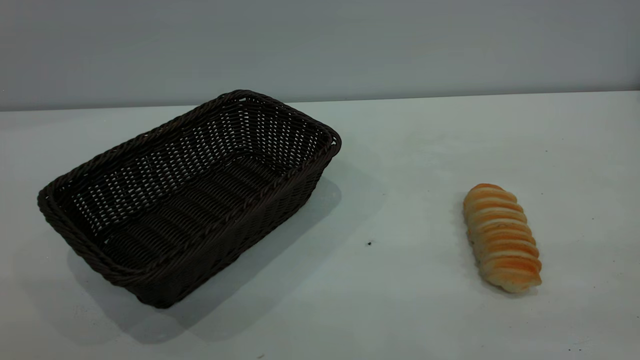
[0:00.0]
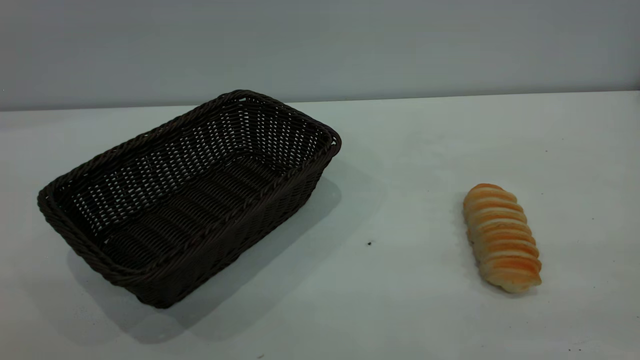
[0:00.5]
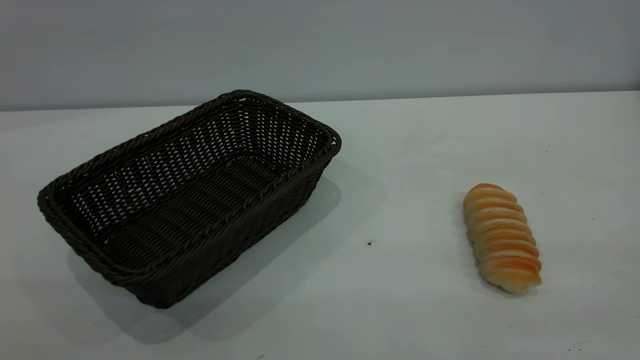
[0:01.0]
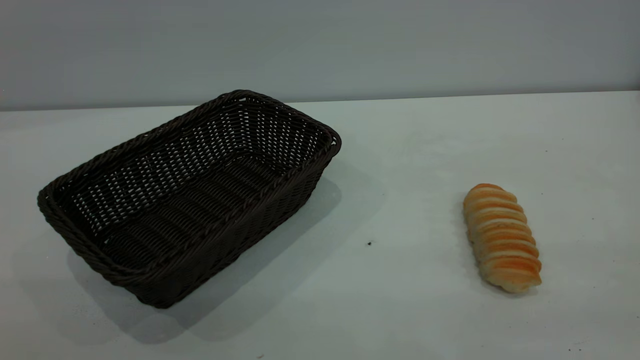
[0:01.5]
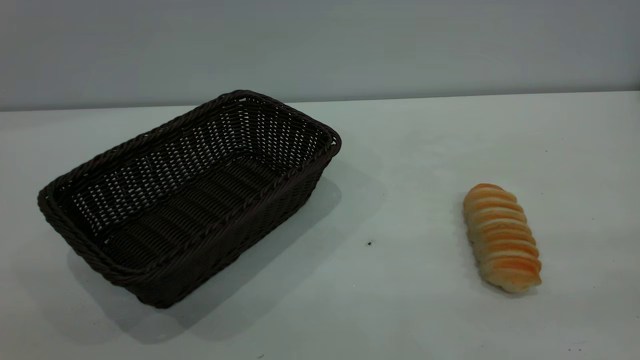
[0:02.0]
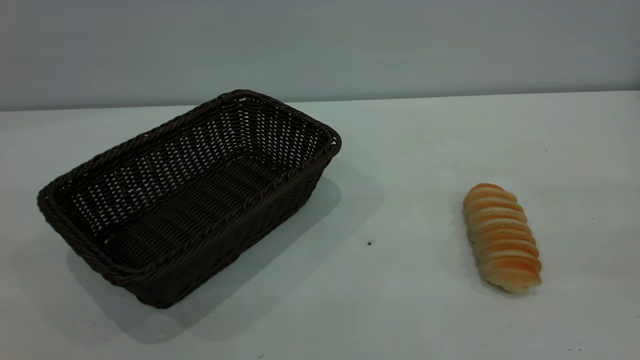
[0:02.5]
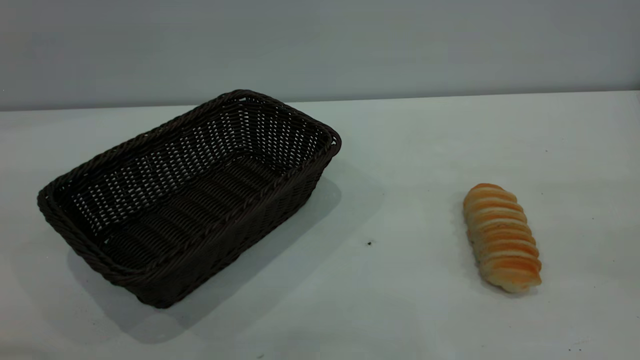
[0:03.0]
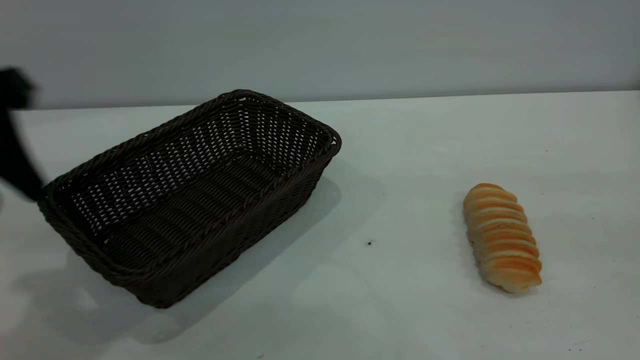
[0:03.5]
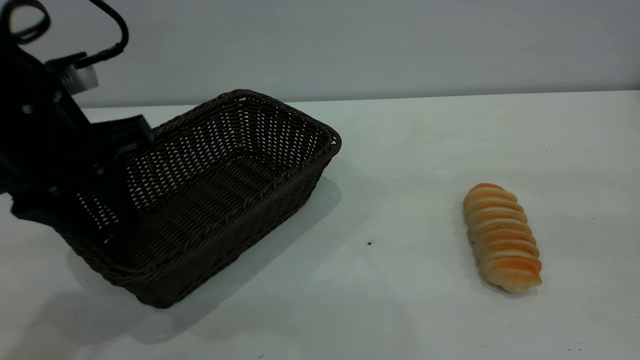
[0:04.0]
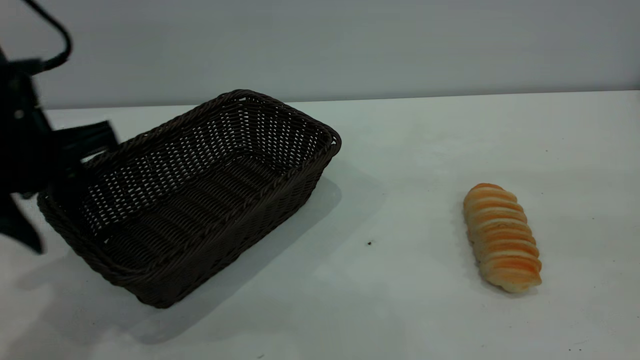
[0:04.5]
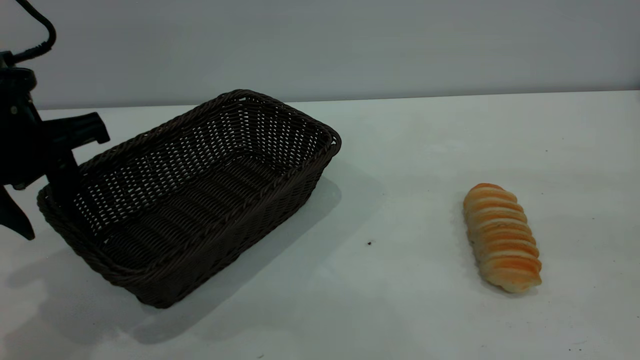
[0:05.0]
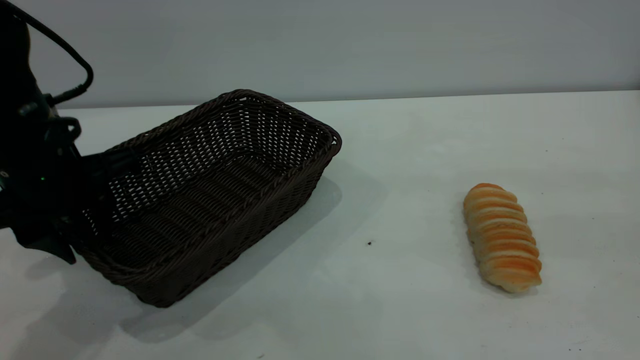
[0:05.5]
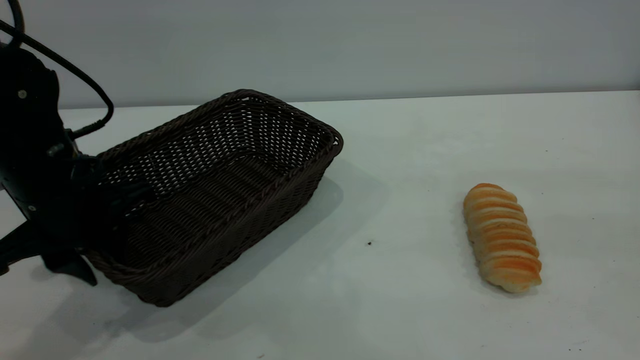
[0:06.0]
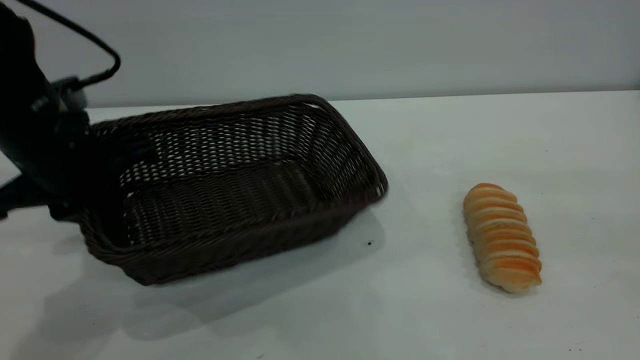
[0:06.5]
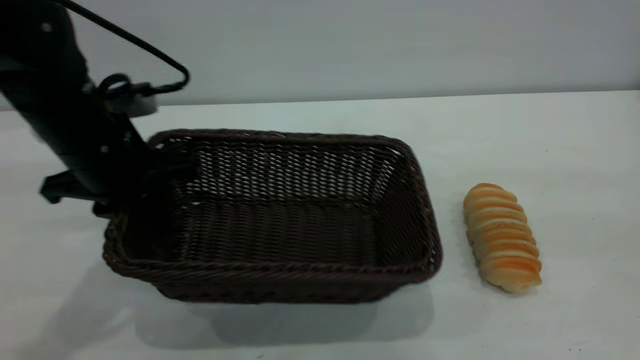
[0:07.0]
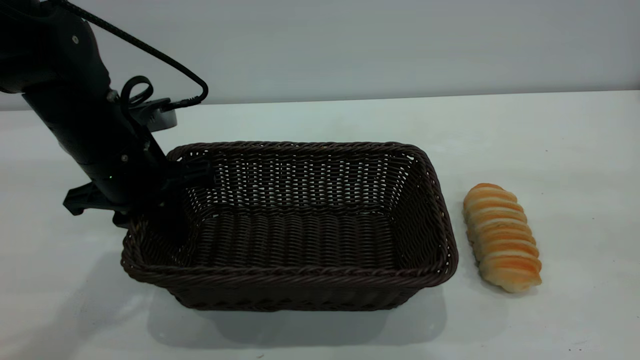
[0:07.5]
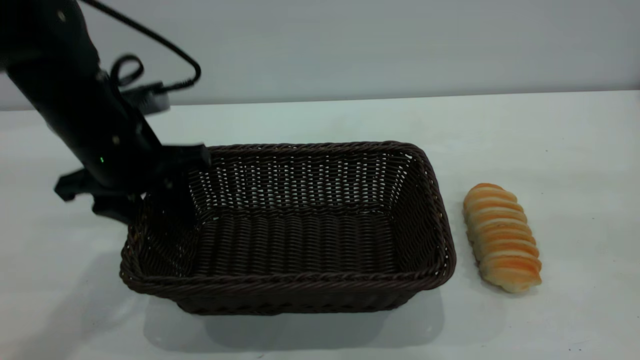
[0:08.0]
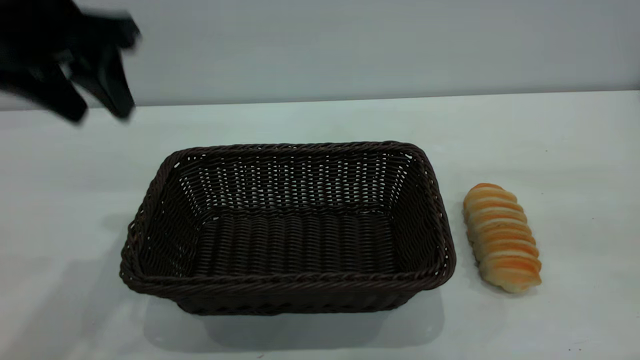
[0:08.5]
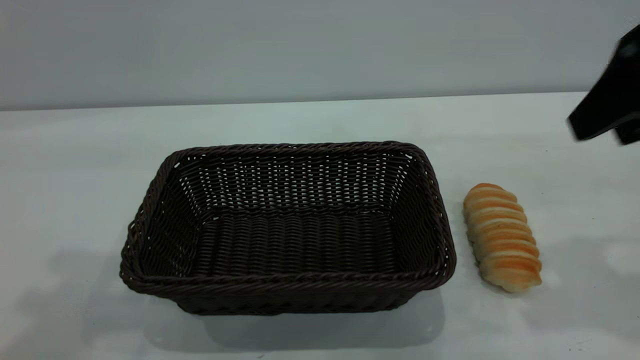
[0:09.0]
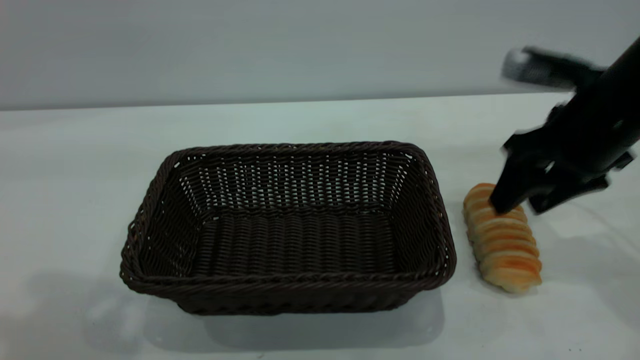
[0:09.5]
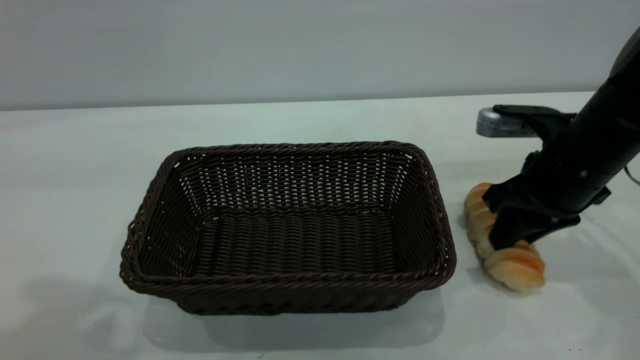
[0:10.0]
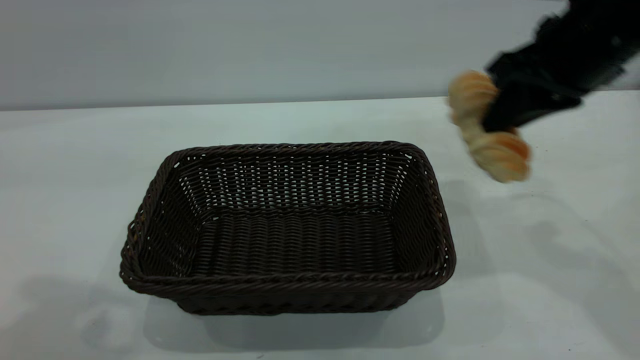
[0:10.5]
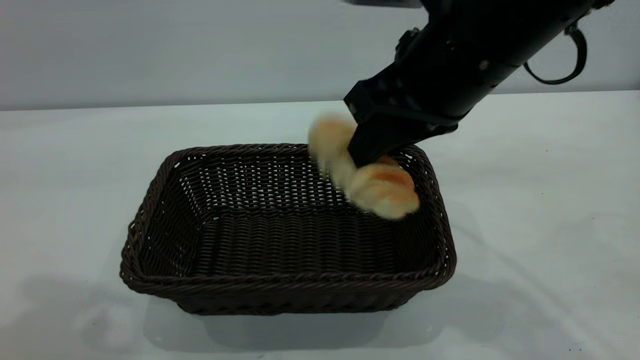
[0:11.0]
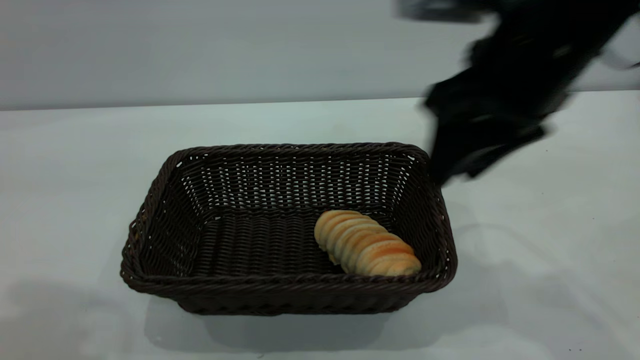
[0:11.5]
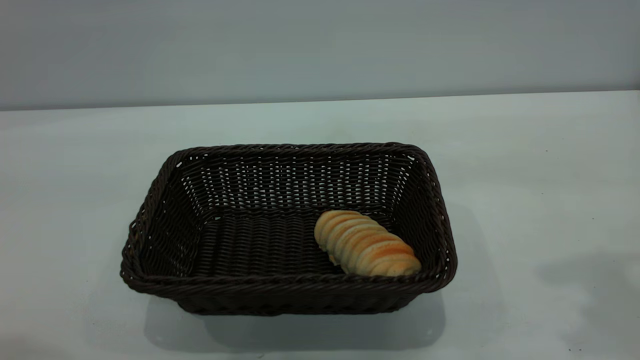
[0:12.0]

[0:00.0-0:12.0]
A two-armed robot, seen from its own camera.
Task of the whole recording: One hand grasps the black basket and places it in the middle of the table, while the other hand picks up the long bread and puts it into the black basket.
Step, 0:00.0 to 0:08.0: Move the basket to the center of view.
Step, 0:10.5 to 0:11.5: place the bread into the basket.
0:02.0 to 0:04.0: The left gripper shifts some 35 cm forward and downward.
0:04.0 to 0:06.0: The left gripper is displaced downward by some 10 cm.
0:06.0 to 0:08.0: The left gripper moves about 5 cm, and opens.
0:08.0 to 0:10.0: The left gripper shifts about 30 cm upward and backward. The right gripper heads forward and downward, covering roughly 35 cm, and closes its fingers.
0:10.0 to 0:12.0: The left gripper is displaced backward by roughly 5 cm; the right gripper moves upward and backward, about 30 cm, and opens up.

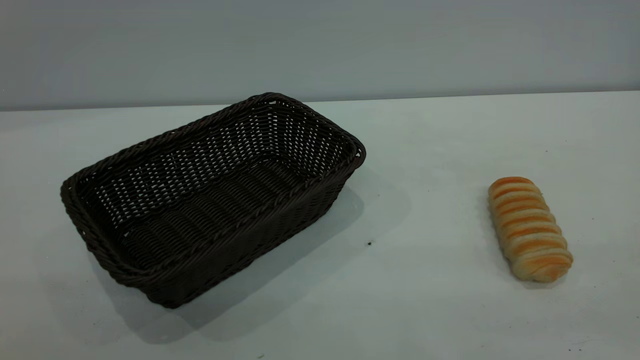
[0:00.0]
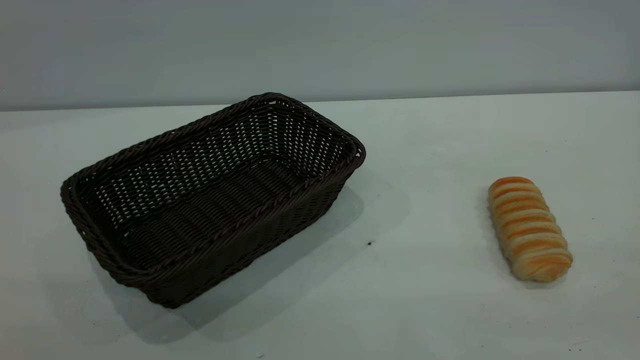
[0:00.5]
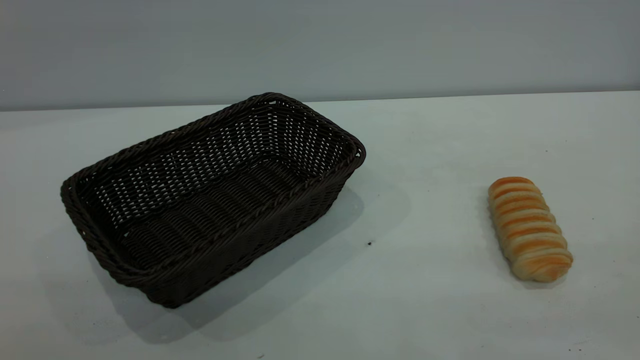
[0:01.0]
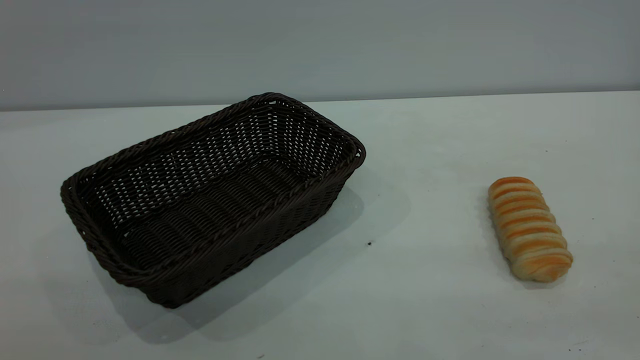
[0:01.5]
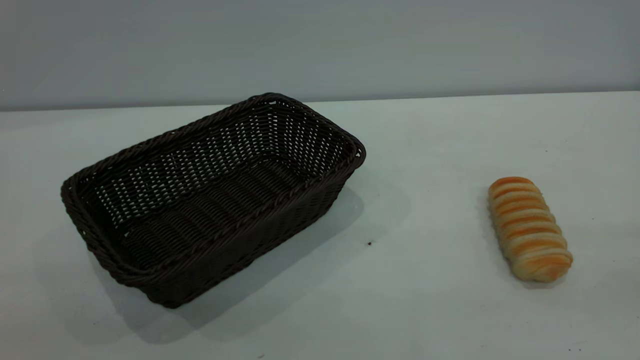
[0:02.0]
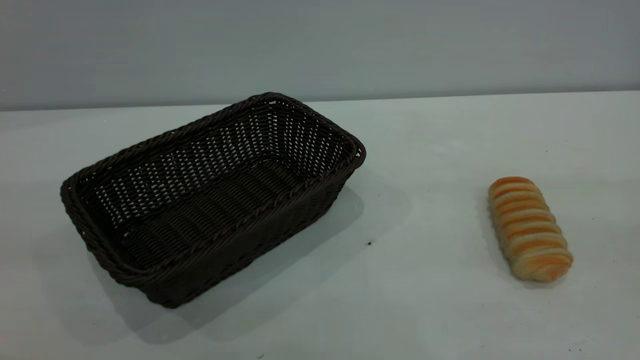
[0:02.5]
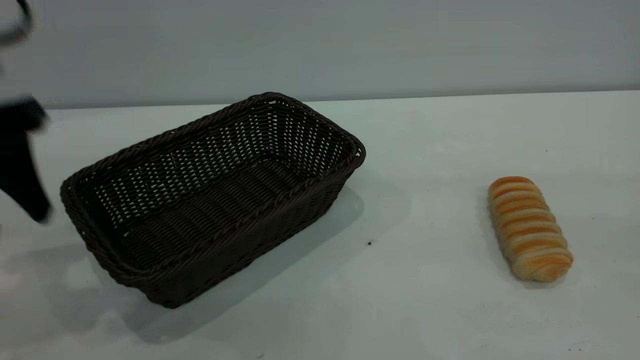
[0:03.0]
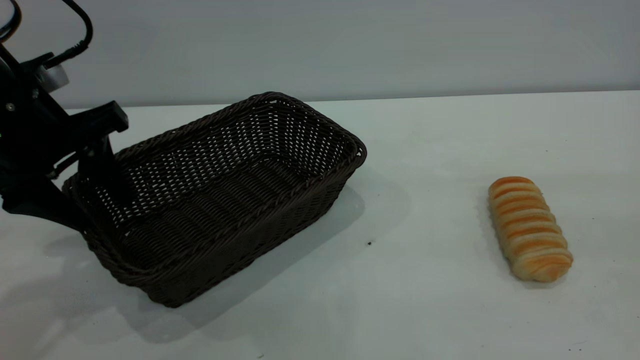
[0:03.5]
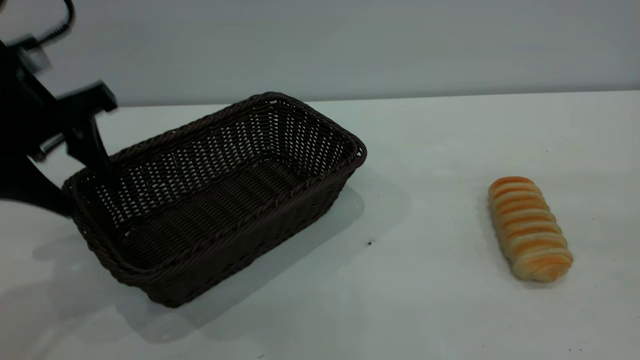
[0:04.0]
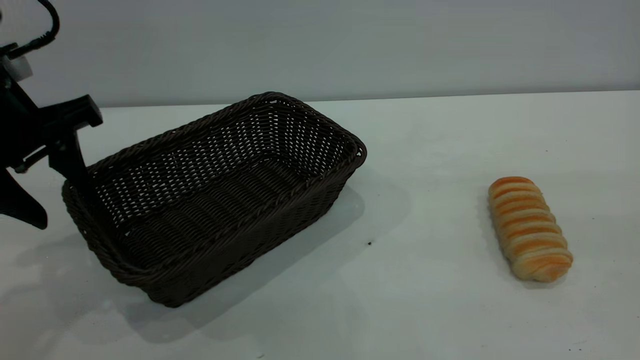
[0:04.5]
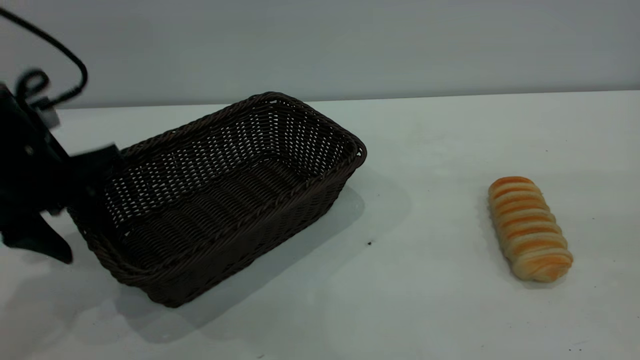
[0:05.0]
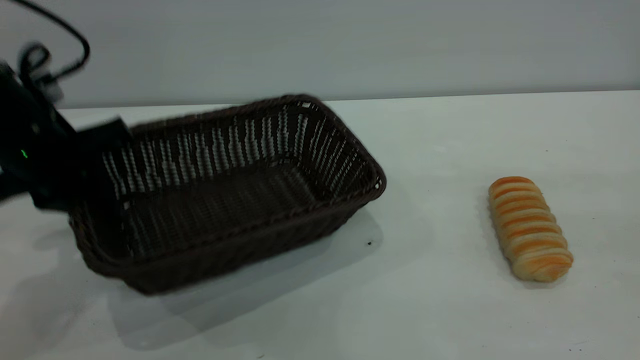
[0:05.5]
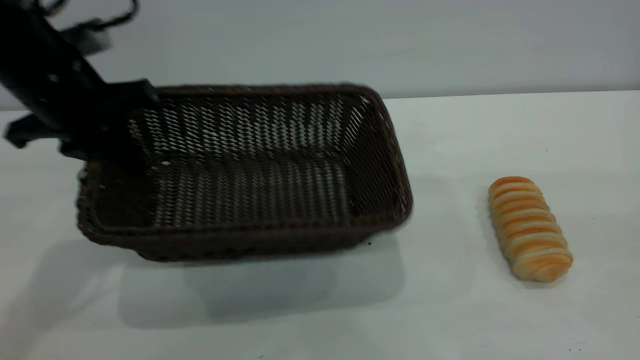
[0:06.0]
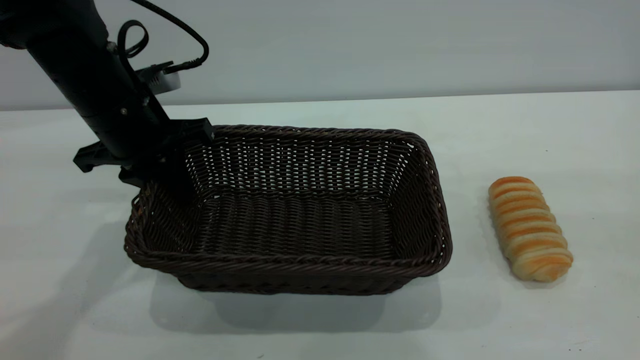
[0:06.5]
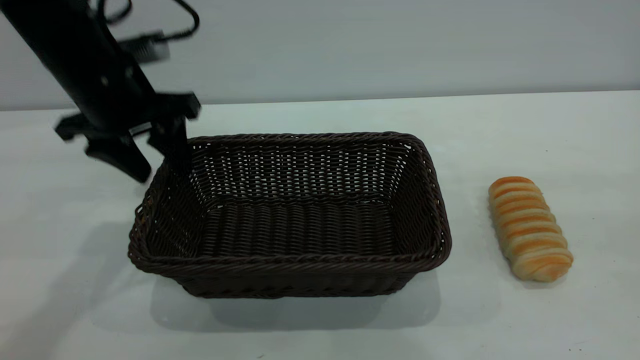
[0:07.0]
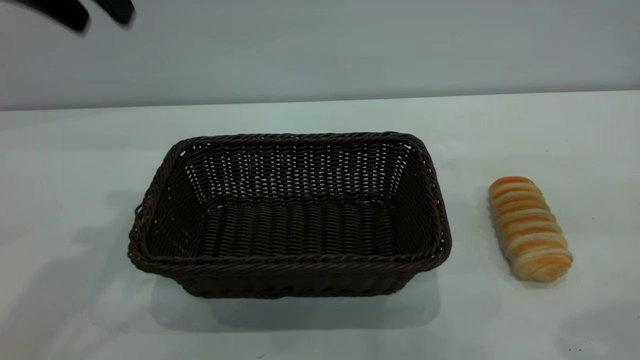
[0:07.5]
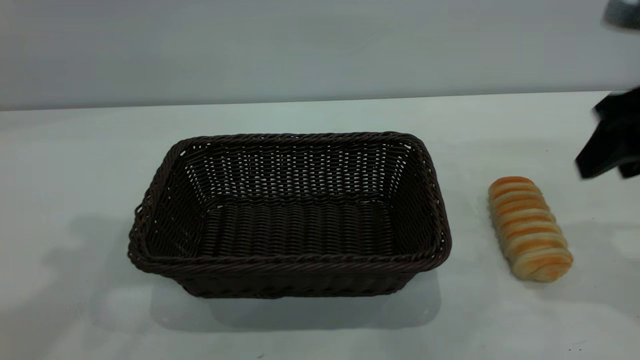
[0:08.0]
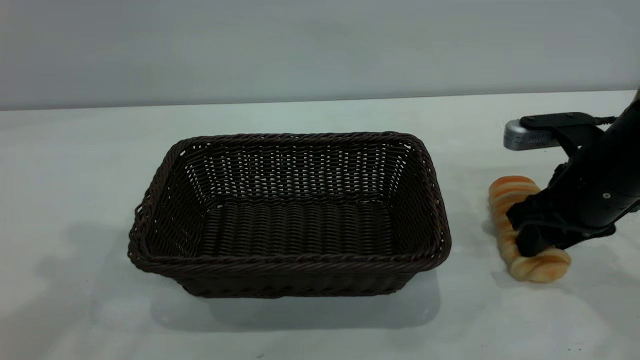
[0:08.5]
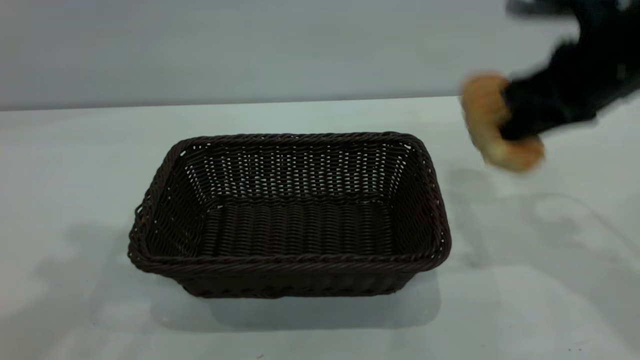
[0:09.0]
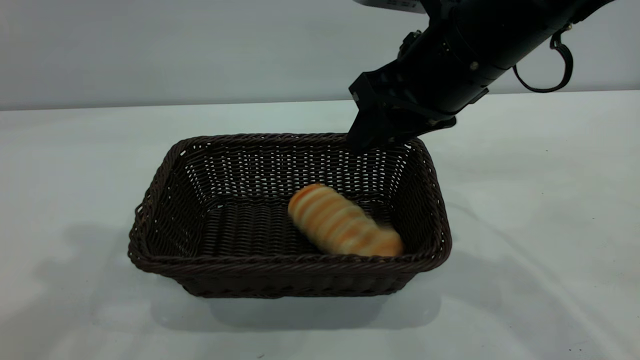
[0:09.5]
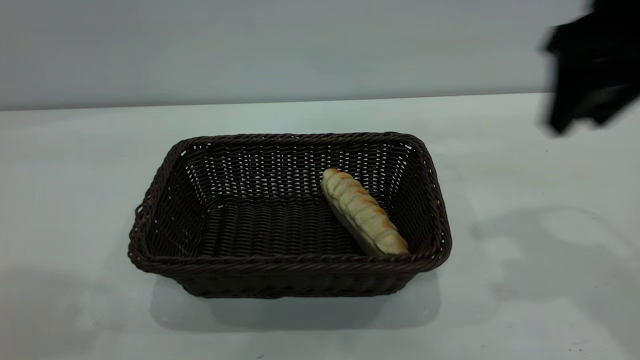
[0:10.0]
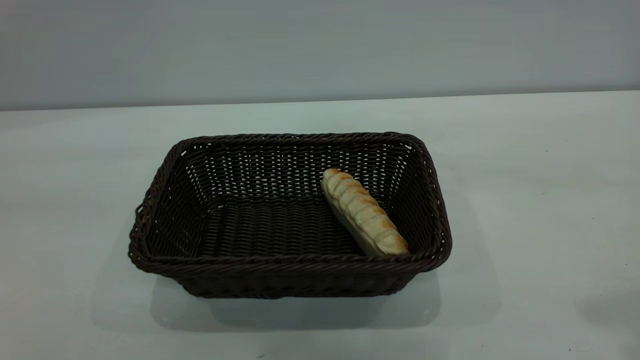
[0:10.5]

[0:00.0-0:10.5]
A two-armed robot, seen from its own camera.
Task of the whole recording: One hand grasps the black basket and places it in the middle of the table, while the other hand picks up the long bread and puts it into the black basket.
Step, 0:00.0 to 0:07.0: Move the basket to the center of view.
Step, 0:09.0 to 0:09.5: place the bread into the basket.
0:02.0 to 0:04.0: The left gripper moves forward and downward, some 35 cm.
0:04.0 to 0:06.5: The left gripper moves forward, downward and to the right, about 10 cm, and closes up.
0:06.5 to 0:08.5: The right gripper moves downward and forward, roughly 35 cm, and closes up, while the left gripper travels upward by some 25 cm, and opens.
0:08.5 to 0:10.5: The right gripper moves upward and backward, about 35 cm, and opens up. Meanwhile the left gripper moves backward, some 15 cm.
